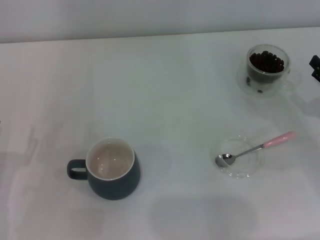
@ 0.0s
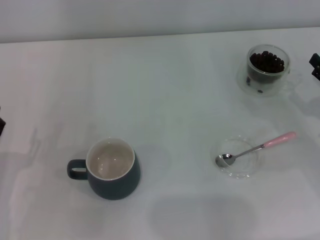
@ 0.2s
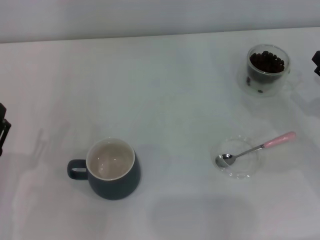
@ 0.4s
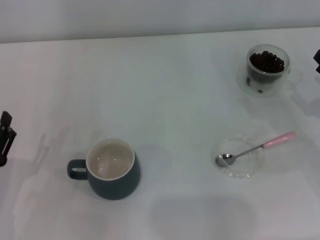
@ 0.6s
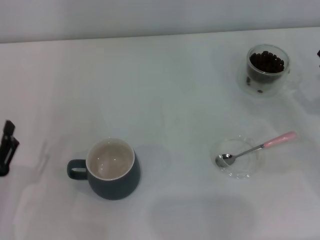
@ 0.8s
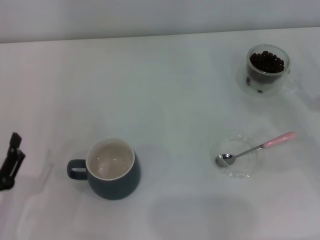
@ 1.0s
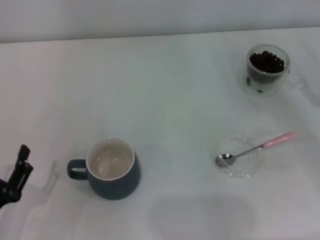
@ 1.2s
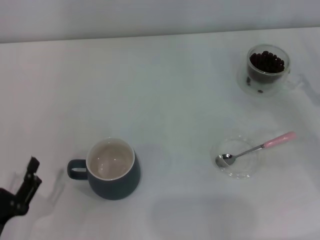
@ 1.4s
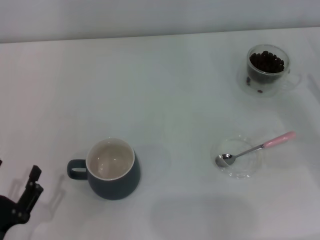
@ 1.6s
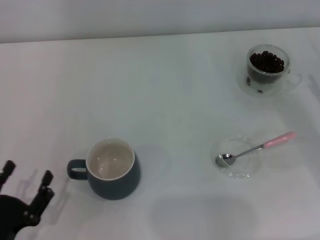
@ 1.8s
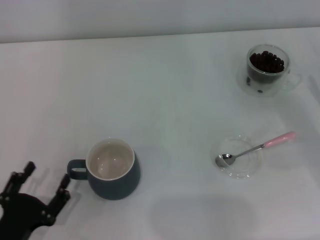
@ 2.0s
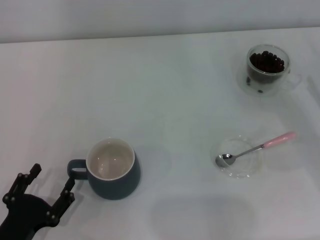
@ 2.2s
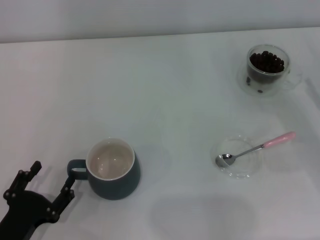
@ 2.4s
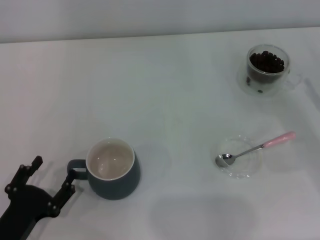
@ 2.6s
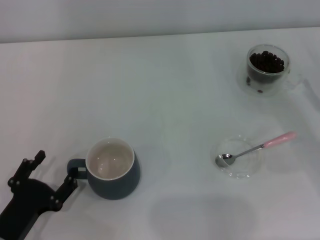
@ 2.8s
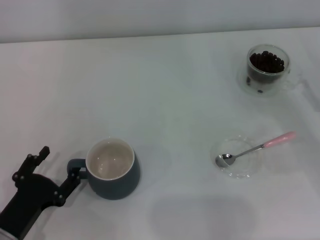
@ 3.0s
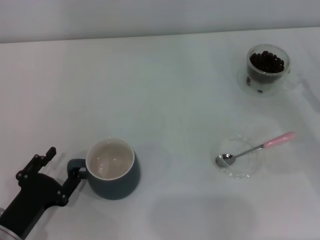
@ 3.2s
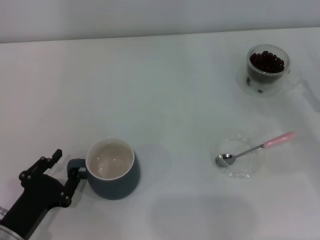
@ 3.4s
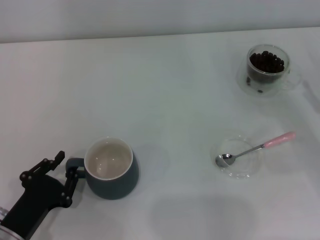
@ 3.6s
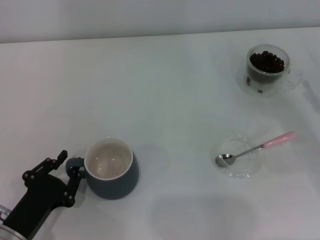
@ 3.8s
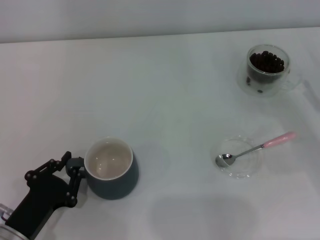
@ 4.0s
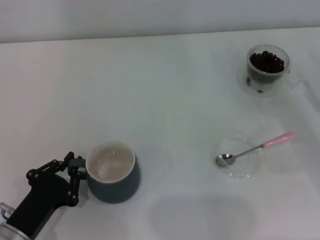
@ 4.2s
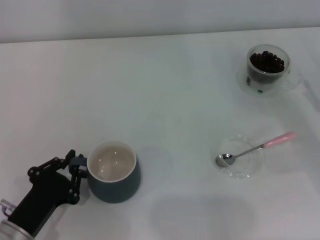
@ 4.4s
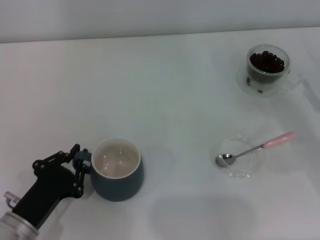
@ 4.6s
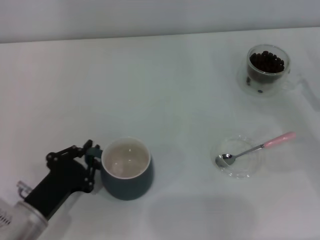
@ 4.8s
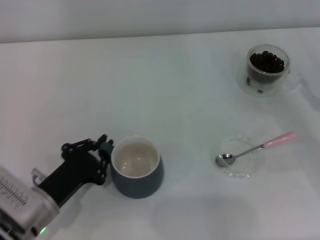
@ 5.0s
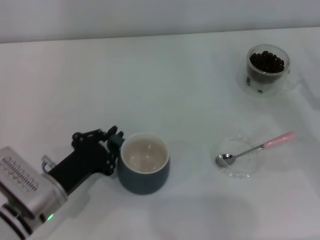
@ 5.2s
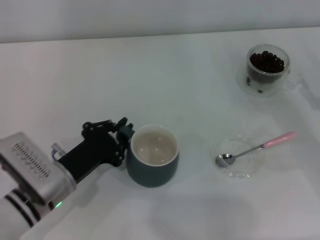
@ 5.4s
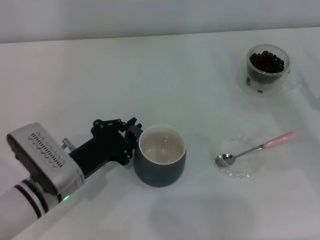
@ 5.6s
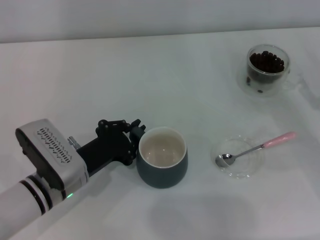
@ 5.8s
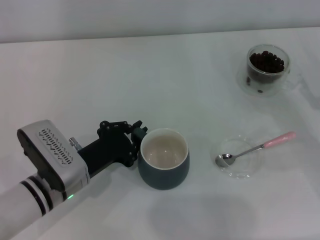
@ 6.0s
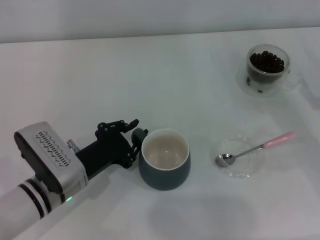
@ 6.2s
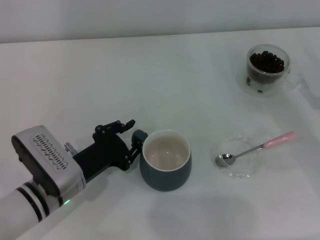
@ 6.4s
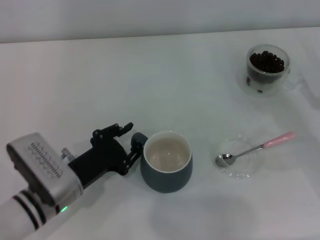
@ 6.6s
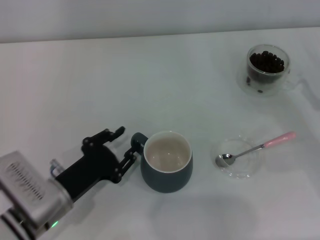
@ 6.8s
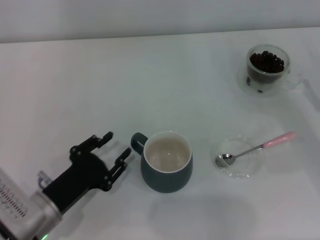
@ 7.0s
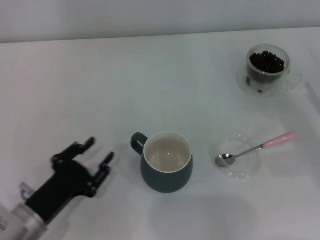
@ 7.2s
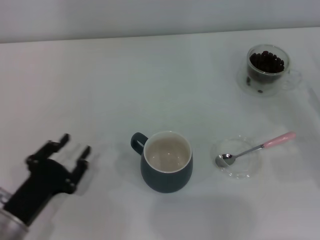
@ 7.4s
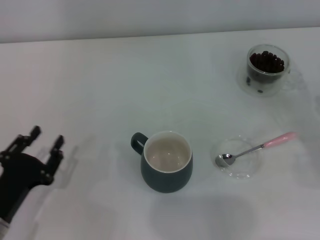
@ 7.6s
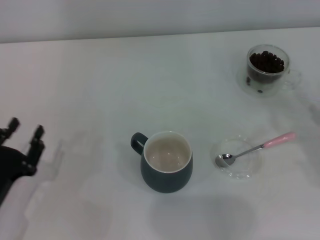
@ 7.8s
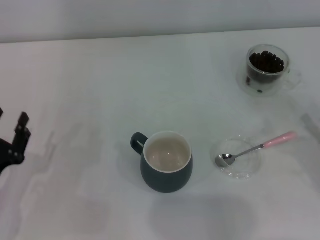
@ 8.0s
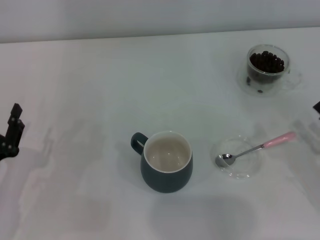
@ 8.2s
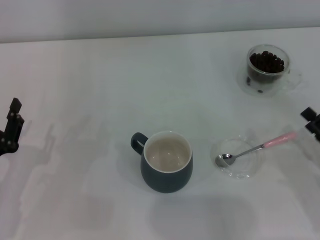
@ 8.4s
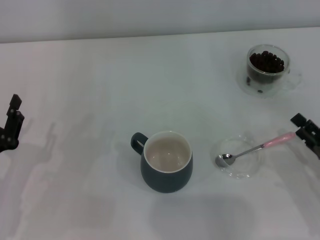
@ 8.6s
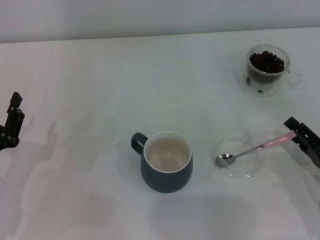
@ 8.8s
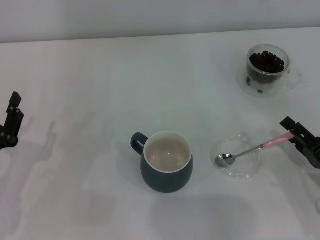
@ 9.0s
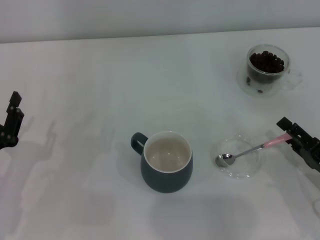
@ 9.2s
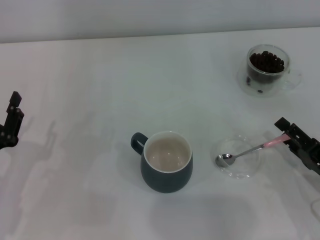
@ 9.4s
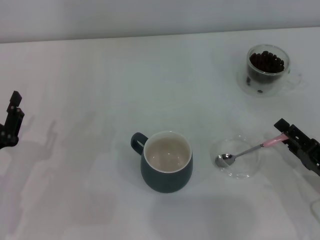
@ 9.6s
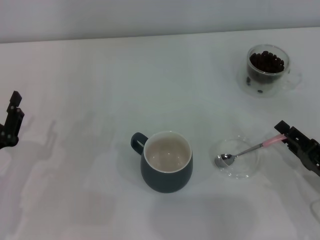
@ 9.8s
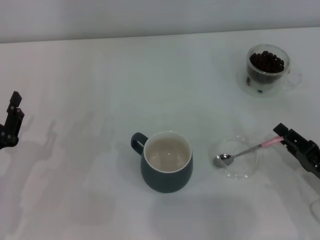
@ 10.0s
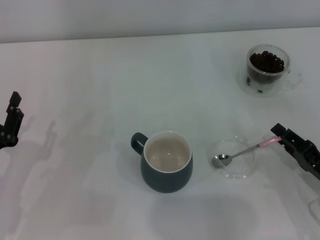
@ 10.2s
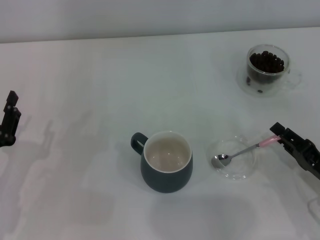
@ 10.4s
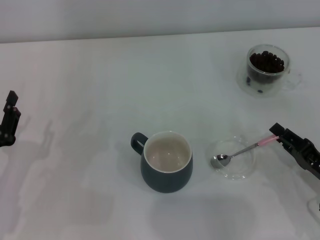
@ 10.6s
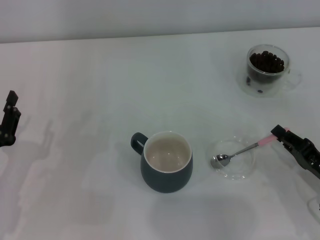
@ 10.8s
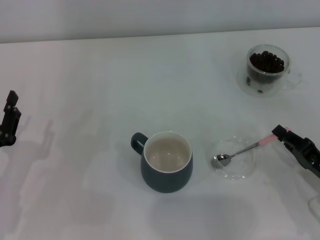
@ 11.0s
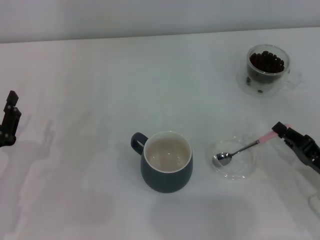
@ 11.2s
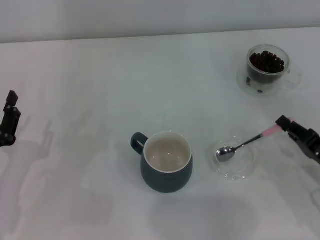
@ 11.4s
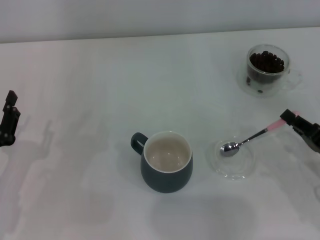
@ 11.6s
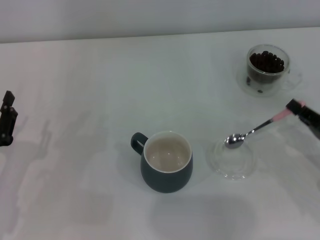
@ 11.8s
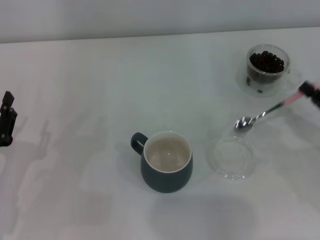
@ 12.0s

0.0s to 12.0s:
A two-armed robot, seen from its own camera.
Task of the whole recording: Use a pink spoon to take out the coffee beans from the glass and pour them into the gray cup.
Step, 0.0s to 7.4s: Move the cup to the center of view with the left gripper.
Step, 7.6s to 12.0s: Pick up the spoon with the right gripper.
0.0s to 1.6s: The left gripper heads backward, covering roughly 10 cm.
1.6s to 3.0s: The left gripper heads forward, covering some 5 cm.
3.0s to 4.4s: The left gripper closes.
4.4s to 6.0s: The left gripper is displaced forward and to the right by some 10 cm.
6.0s to 7.6s: The left gripper travels to the left and backward by approximately 15 cm, and opens its fingers. The right gripper changes place by about 5 cm.
7.6s to 9.0s: The right gripper shifts about 5 cm to the left.
9.0s to 10.4s: The right gripper closes.
10.4s to 12.0s: The right gripper ends up about 10 cm from where it was, and closes.

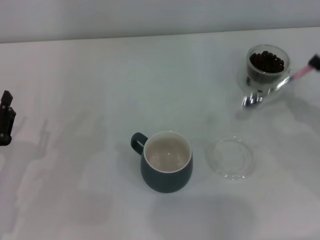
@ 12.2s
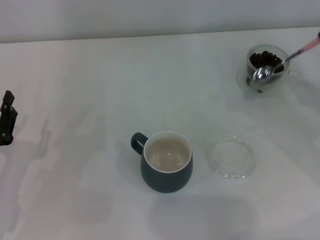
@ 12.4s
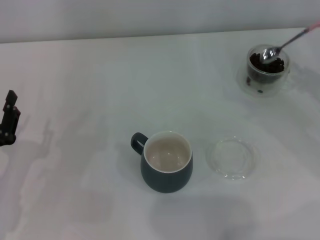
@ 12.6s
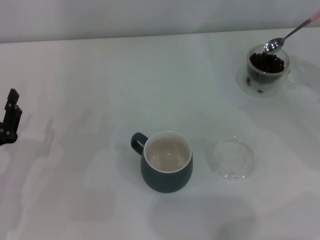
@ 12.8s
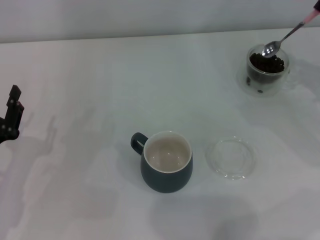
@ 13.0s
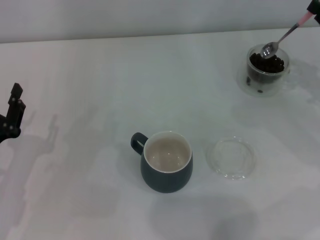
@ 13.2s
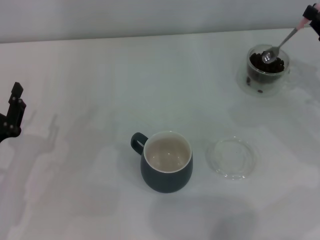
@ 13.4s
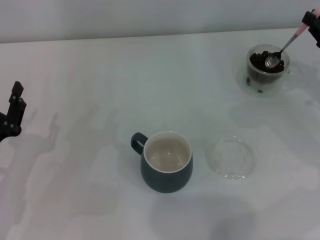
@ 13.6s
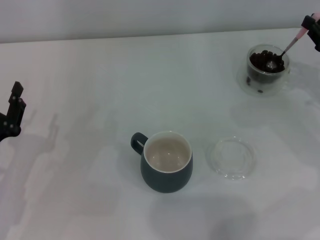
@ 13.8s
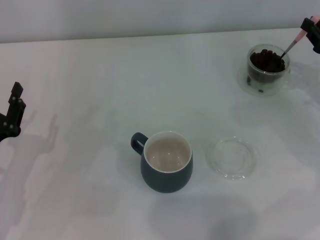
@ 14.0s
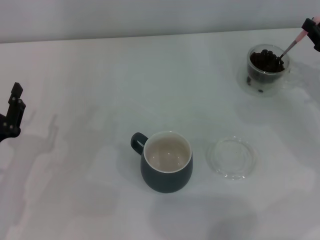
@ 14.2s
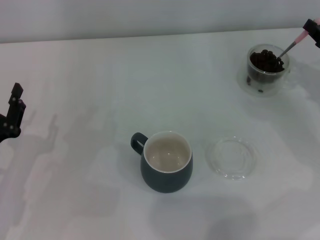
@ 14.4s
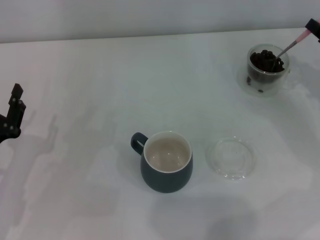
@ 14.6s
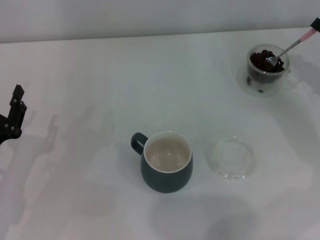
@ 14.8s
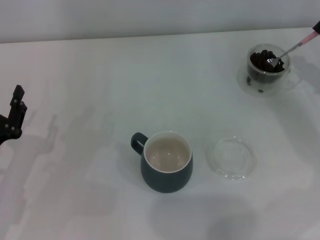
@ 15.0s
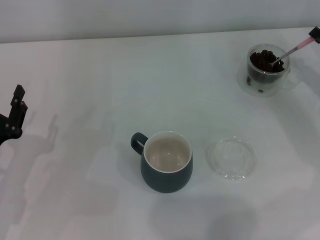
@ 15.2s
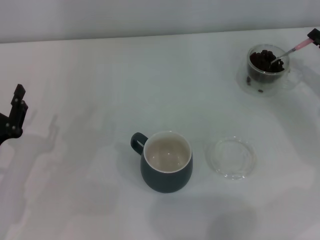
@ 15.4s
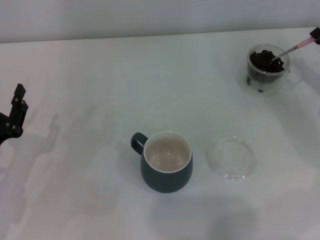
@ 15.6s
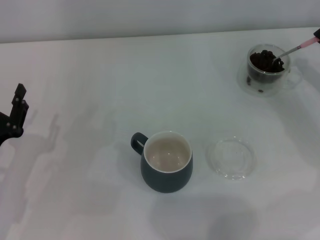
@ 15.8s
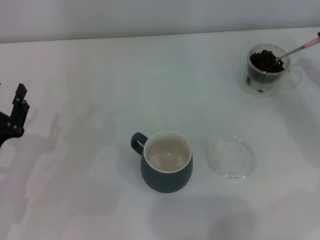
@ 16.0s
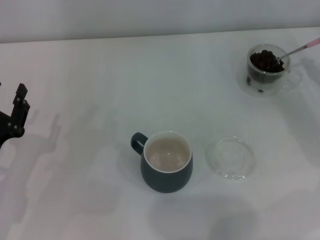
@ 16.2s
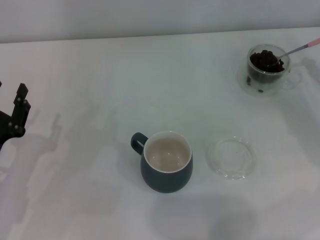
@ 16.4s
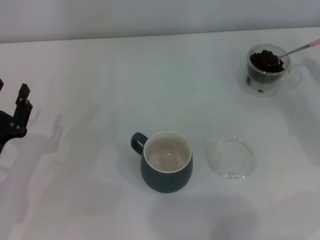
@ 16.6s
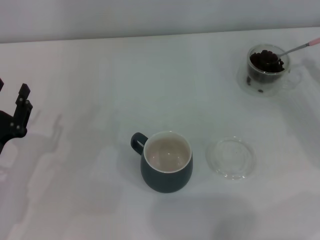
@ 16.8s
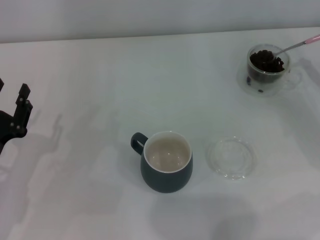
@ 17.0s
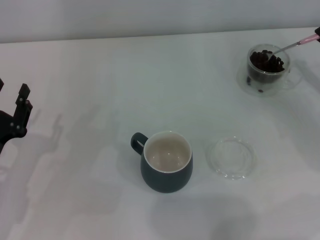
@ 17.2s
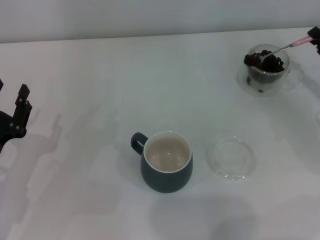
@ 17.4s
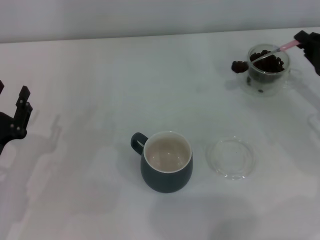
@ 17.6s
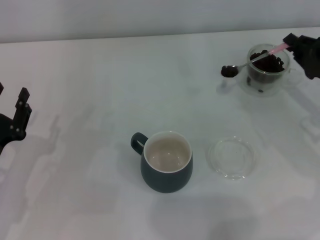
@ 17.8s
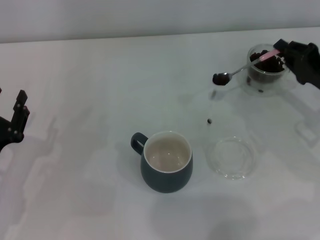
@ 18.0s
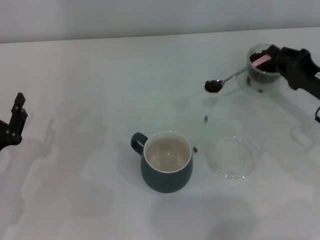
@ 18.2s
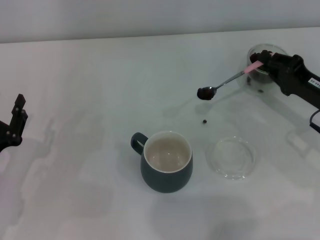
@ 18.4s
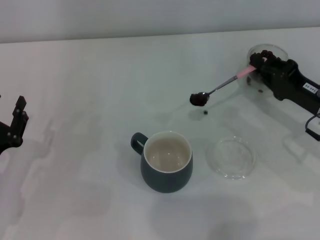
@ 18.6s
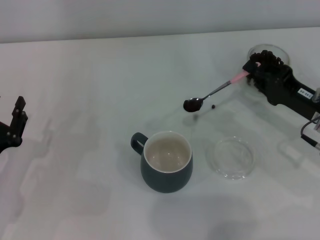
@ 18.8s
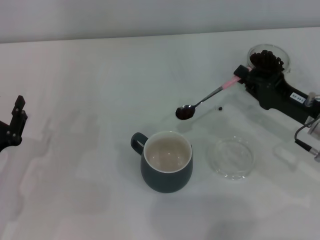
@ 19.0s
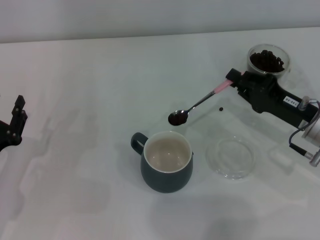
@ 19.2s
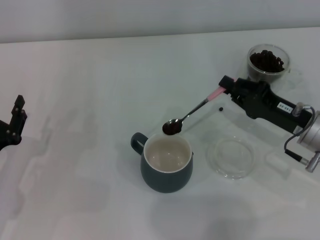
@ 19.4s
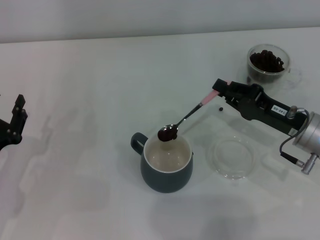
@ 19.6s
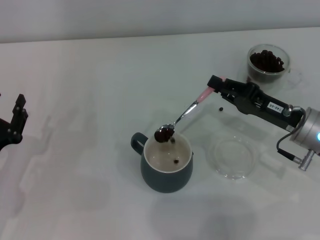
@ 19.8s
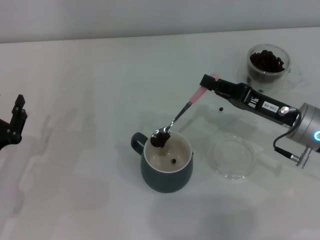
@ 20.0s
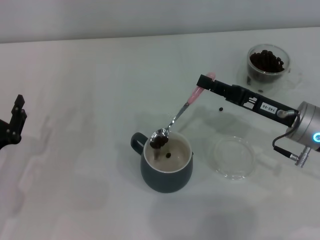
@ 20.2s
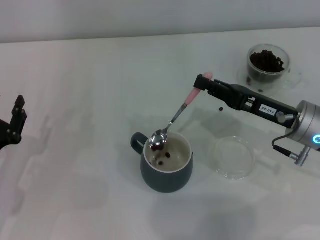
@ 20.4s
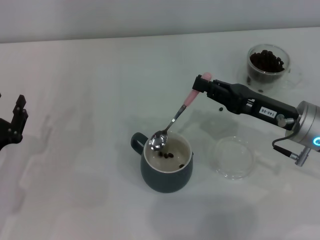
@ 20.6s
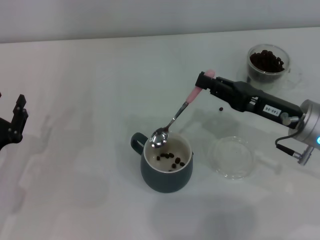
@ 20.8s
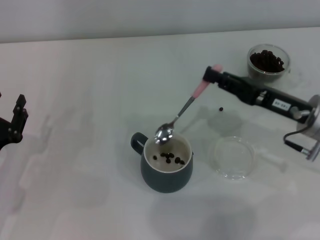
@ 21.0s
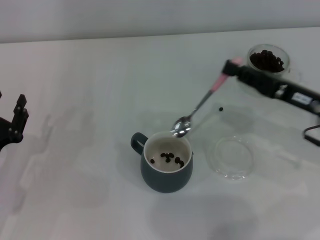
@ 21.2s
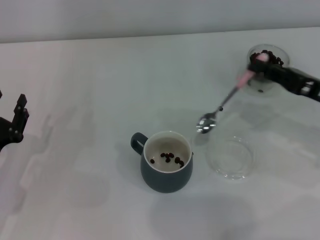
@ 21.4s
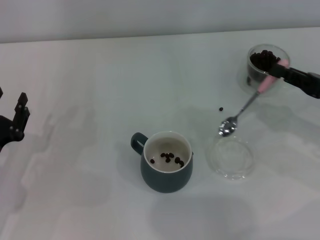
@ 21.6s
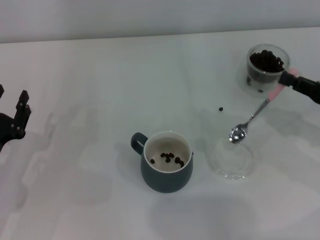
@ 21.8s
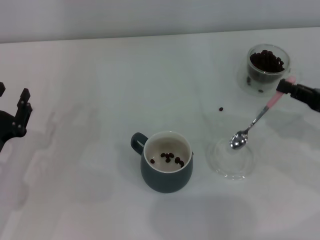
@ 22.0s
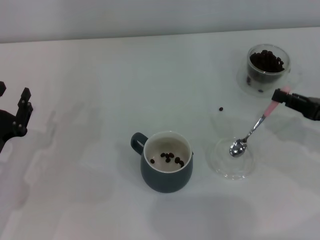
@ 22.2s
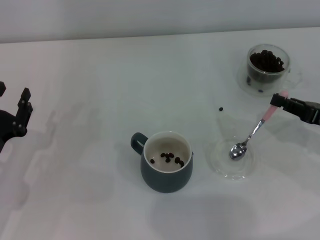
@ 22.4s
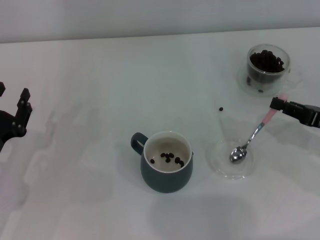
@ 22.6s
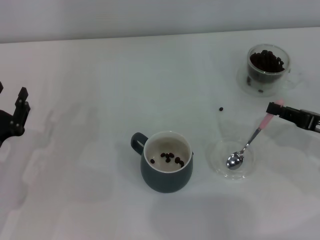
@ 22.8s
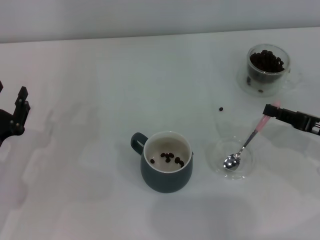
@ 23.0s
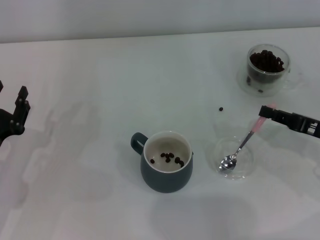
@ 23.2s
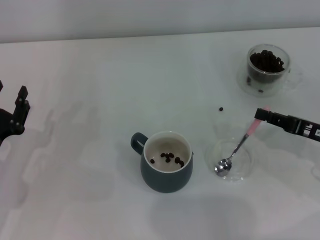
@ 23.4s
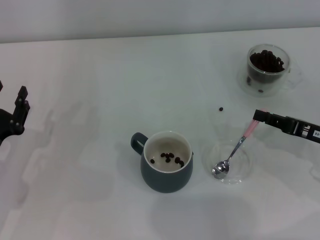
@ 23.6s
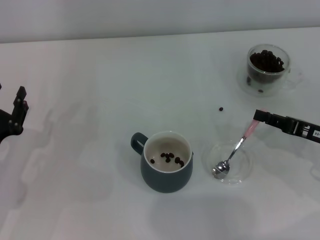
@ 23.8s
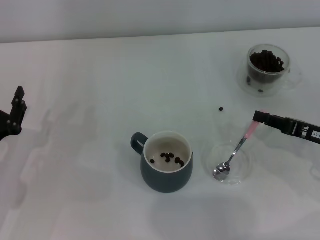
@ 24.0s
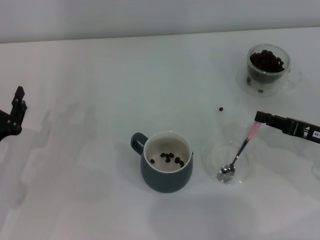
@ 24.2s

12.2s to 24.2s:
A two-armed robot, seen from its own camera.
Task of the whole recording: Use a pink spoon to take out the coffee beans from the glass and pour them into the gray cup.
Step, 12.2s to 21.0s: Scoop a spoonful of beans into the cup with the right gripper.
12.2s to 13.8s: The right gripper heads forward, covering some 10 cm.
15.2s to 16.6s: The grippers stay close to where they were, moving slightly.
16.6s to 18.2s: The right gripper heads to the left, covering some 5 cm.
18.2s to 19.8s: The right gripper shifts about 5 cm to the left.
19.8s to 21.2s: The right gripper changes place by some 5 cm.
21.2s to 22.6s: The right gripper shifts roughly 5 cm to the right.
22.6s to 24.2s: There are only small adjustments of the grippers.
